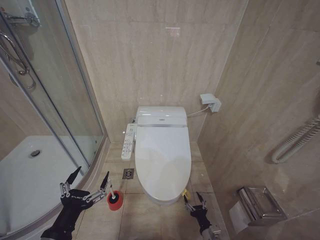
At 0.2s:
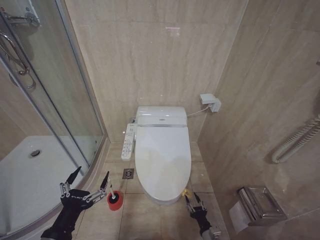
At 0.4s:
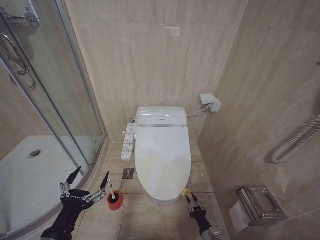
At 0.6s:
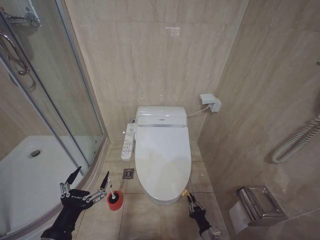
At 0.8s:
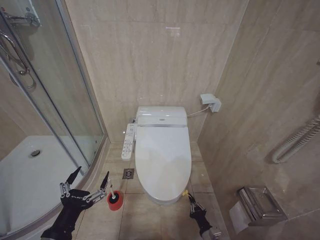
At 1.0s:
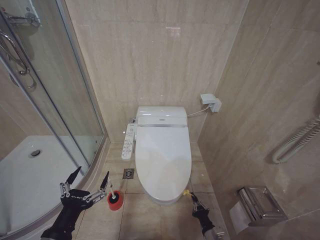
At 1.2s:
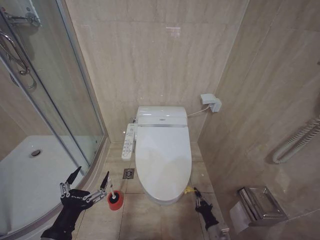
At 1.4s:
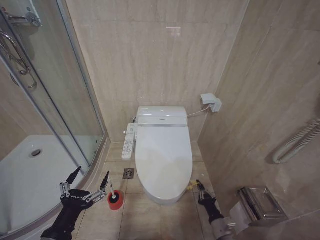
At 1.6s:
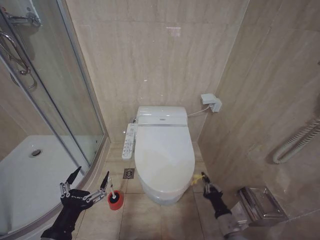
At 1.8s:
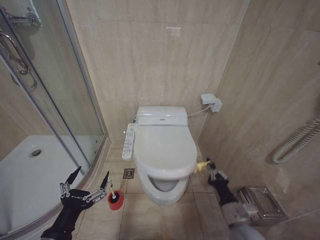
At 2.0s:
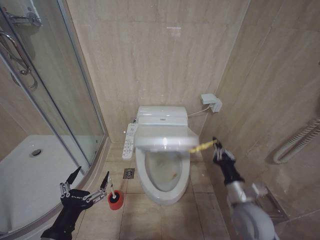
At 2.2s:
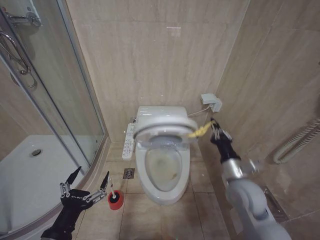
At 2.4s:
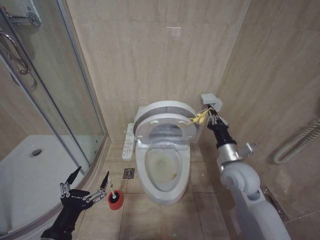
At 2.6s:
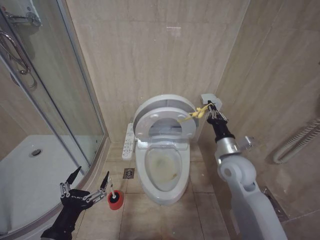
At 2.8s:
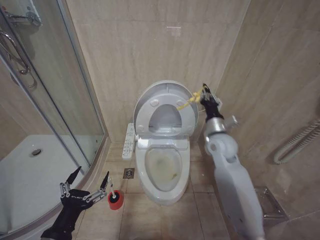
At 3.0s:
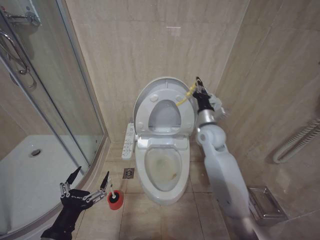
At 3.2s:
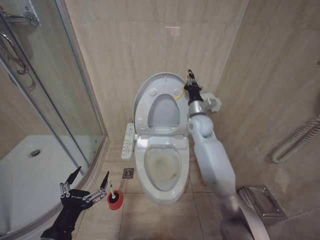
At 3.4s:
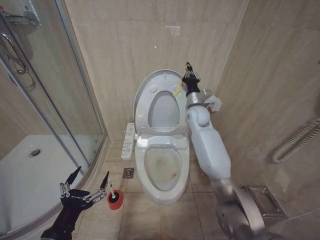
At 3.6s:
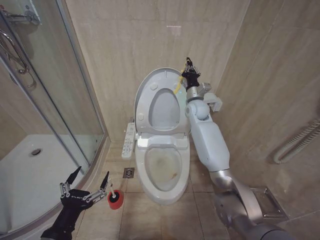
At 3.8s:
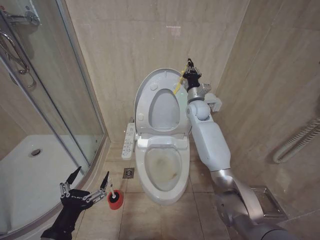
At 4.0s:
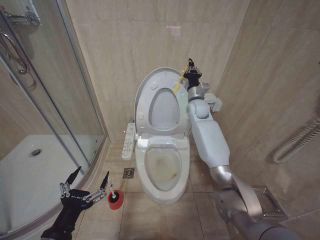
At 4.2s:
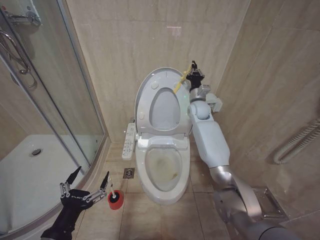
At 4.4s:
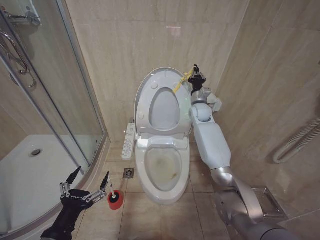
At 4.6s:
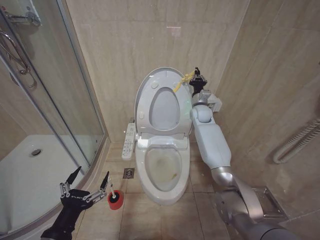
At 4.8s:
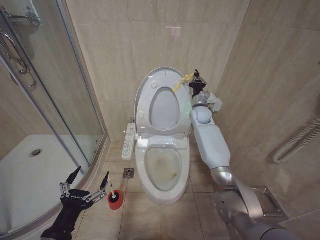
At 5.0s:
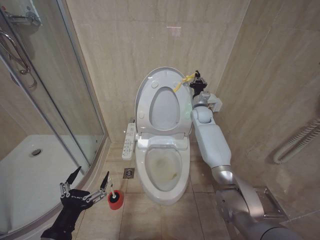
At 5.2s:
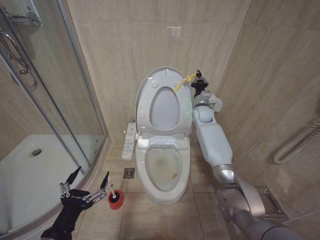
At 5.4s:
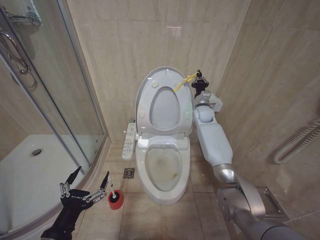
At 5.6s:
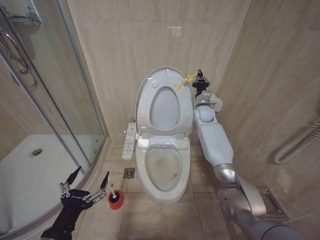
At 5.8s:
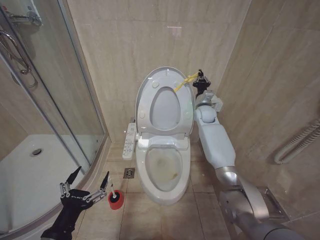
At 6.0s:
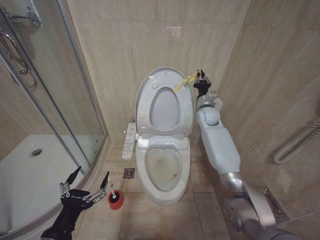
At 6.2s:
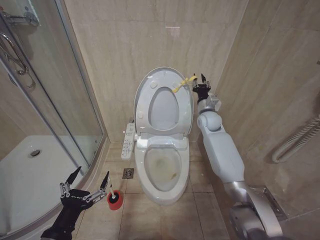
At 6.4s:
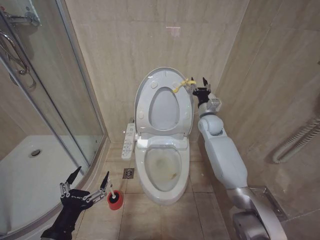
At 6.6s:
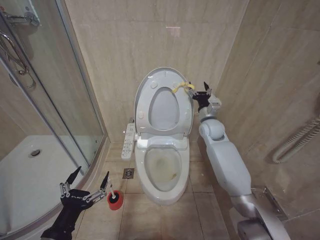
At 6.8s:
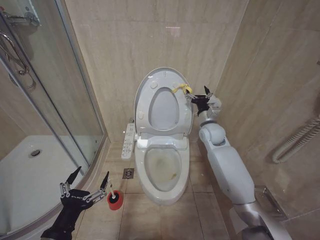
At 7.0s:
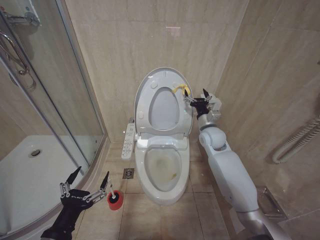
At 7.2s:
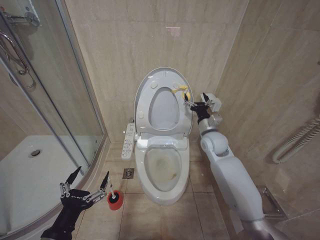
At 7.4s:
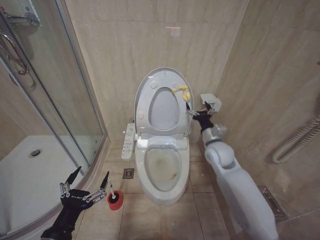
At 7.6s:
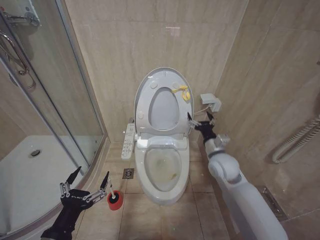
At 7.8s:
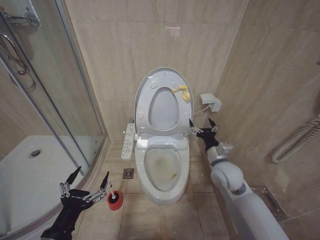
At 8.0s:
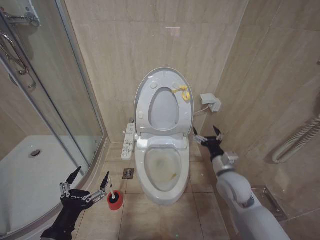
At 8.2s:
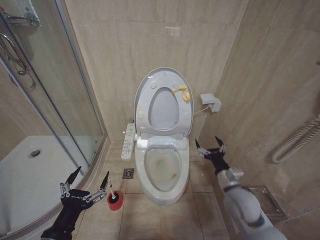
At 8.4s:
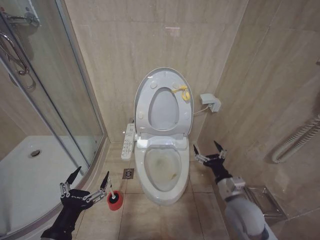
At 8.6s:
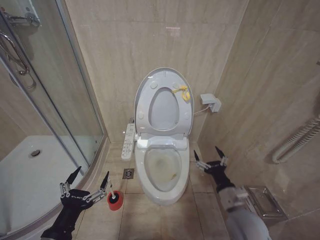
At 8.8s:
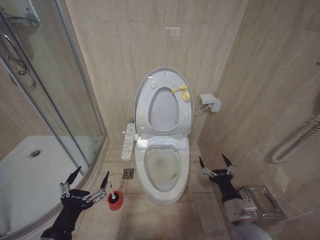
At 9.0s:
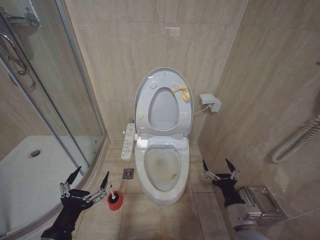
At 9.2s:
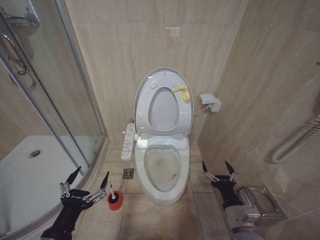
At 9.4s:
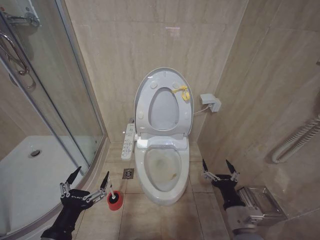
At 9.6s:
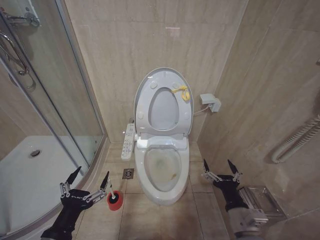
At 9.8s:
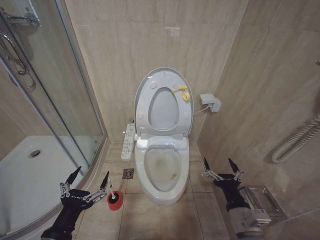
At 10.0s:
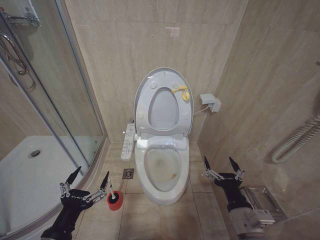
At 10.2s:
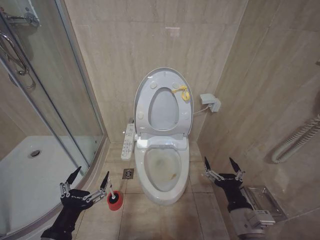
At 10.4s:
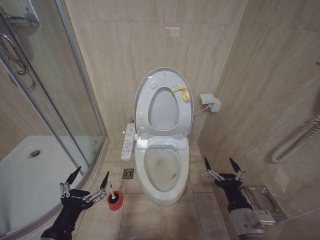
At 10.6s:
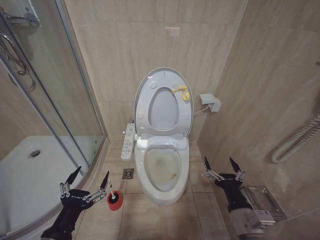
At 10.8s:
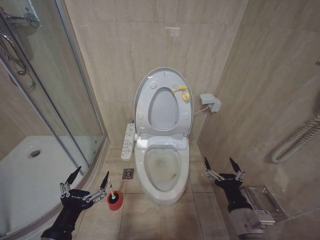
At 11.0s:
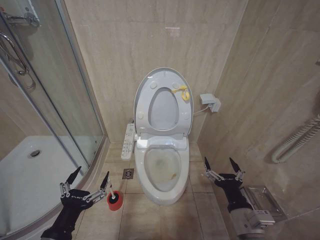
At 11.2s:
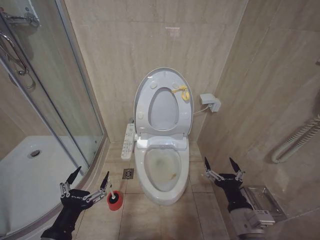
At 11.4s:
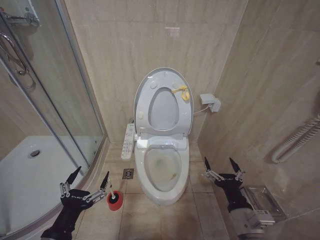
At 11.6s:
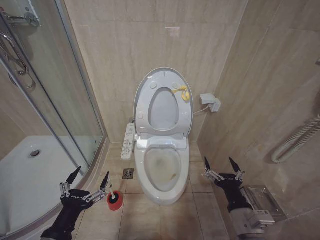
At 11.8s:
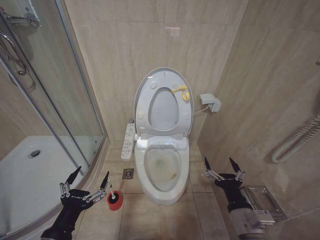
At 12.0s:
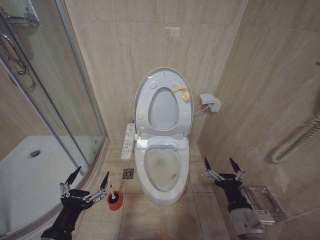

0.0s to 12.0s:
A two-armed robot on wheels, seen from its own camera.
Task of the whole recording: Open the toilet lid, clean the toilet bowl with a toilet brush, close the toilet lid, and flush.
0.0s to 1.6s: The right gripper heads upward, covering roughly 10 cm, and closes.
1.6s to 3.0s: The right gripper goes approximately 40 cm upward and forward.
3.0s to 4.4s: The right gripper travels forward by approximately 15 cm.
4.4s to 6.0s: The grippers stay close to where they were, moving slightly.
6.0s to 7.6s: The right gripper goes roughly 20 cm backward and downward, and opens.
7.6s to 9.0s: The right gripper goes about 25 cm backward and downward.
9.0s to 10.4s: The right gripper moves some 5 cm.
10.4s to 12.0s: Both grippers stay put.

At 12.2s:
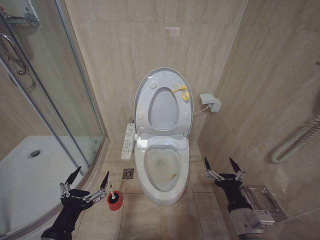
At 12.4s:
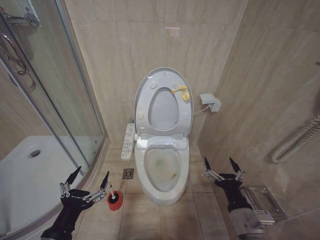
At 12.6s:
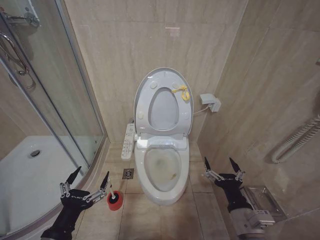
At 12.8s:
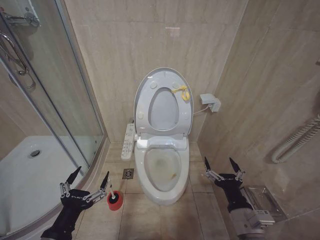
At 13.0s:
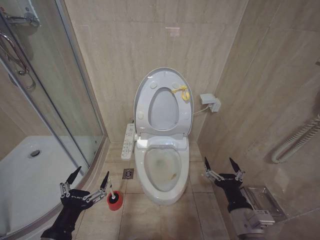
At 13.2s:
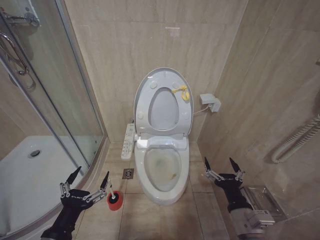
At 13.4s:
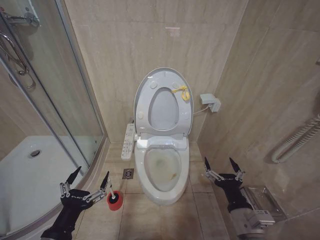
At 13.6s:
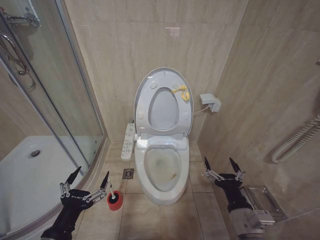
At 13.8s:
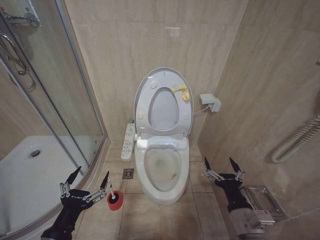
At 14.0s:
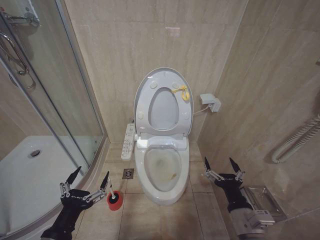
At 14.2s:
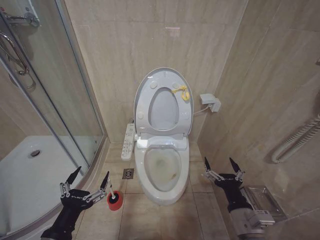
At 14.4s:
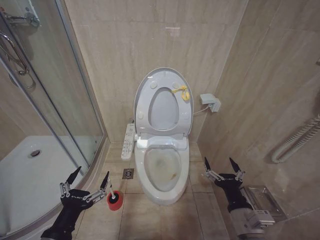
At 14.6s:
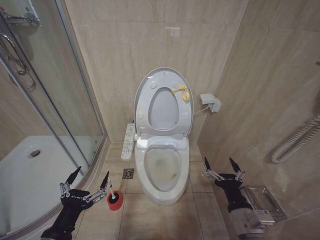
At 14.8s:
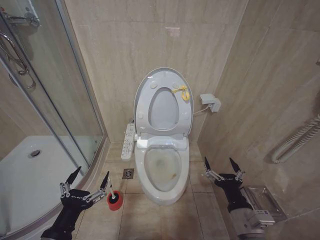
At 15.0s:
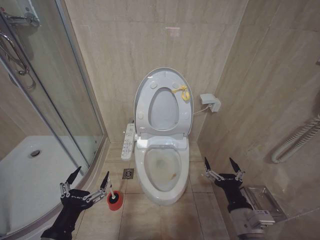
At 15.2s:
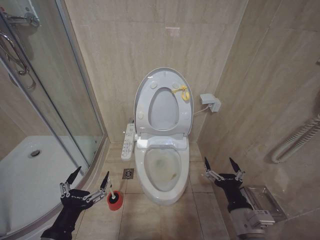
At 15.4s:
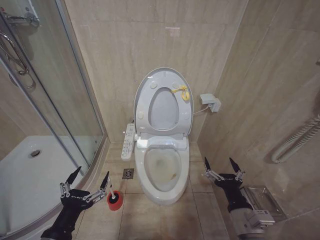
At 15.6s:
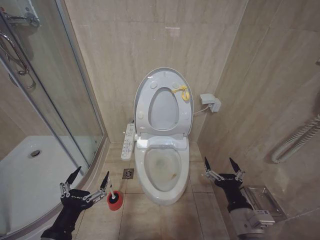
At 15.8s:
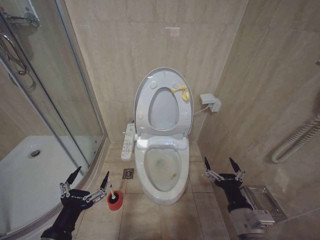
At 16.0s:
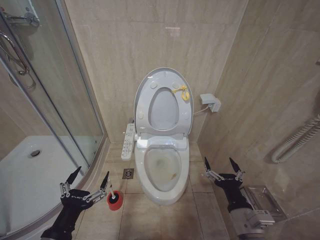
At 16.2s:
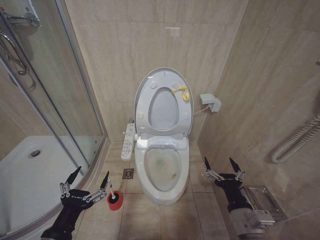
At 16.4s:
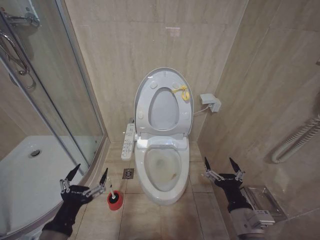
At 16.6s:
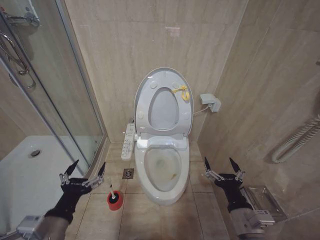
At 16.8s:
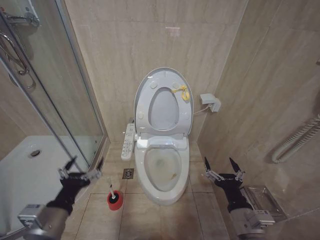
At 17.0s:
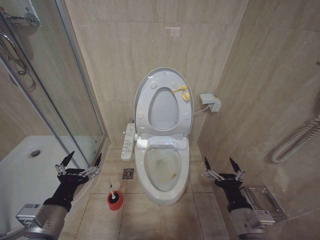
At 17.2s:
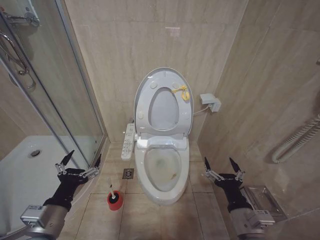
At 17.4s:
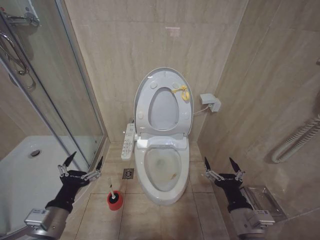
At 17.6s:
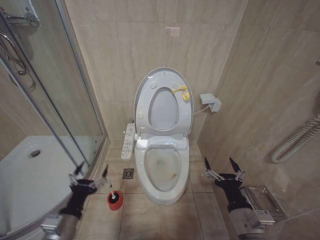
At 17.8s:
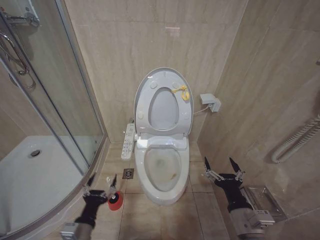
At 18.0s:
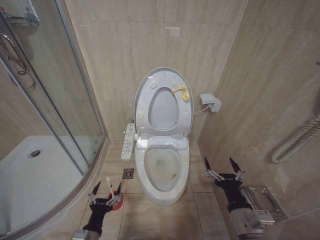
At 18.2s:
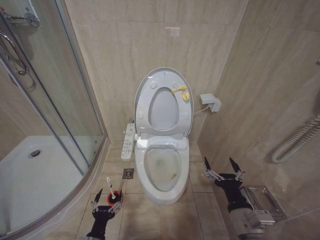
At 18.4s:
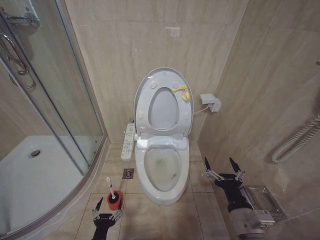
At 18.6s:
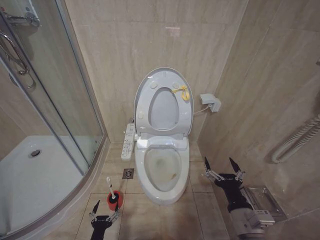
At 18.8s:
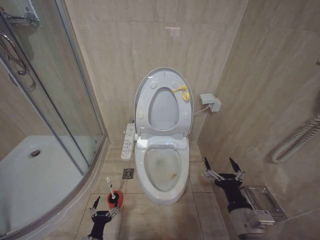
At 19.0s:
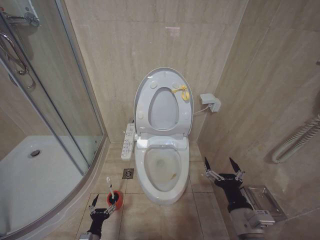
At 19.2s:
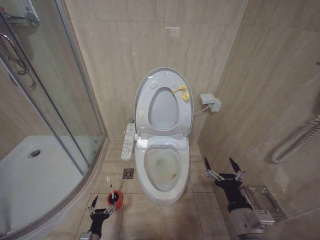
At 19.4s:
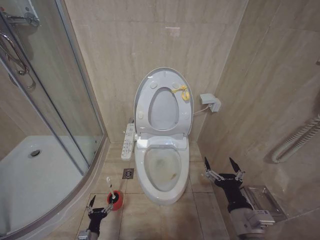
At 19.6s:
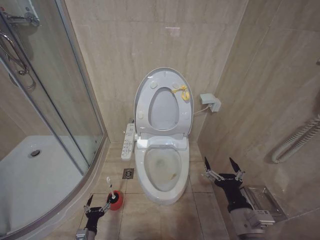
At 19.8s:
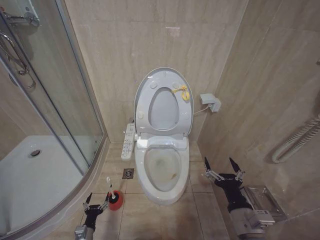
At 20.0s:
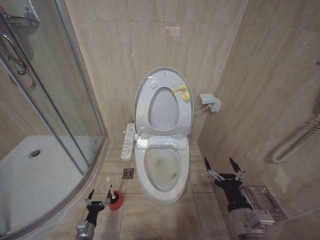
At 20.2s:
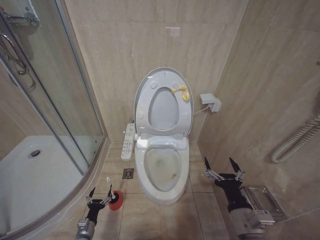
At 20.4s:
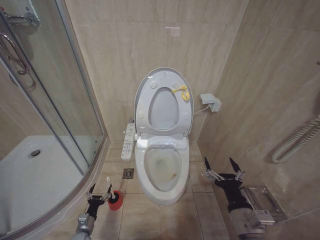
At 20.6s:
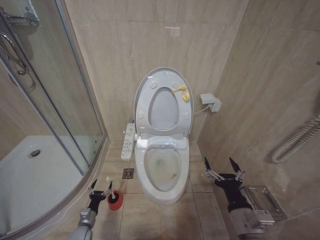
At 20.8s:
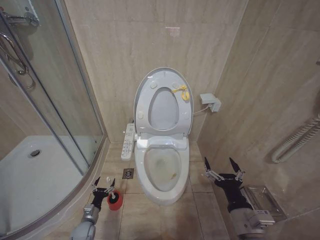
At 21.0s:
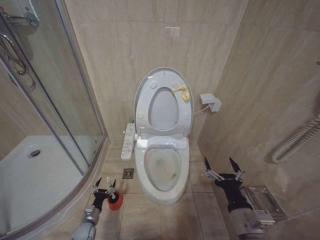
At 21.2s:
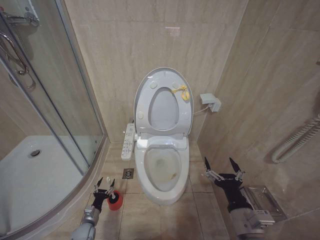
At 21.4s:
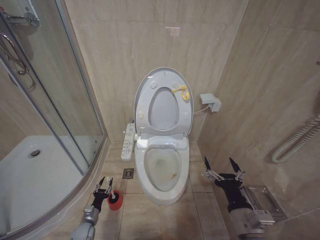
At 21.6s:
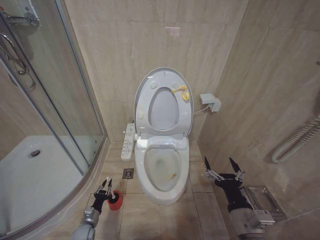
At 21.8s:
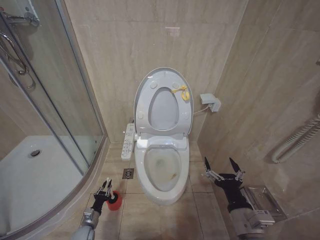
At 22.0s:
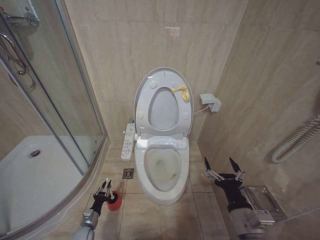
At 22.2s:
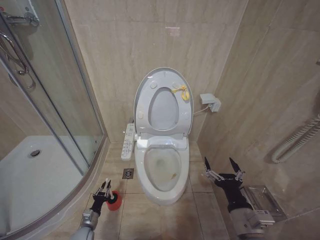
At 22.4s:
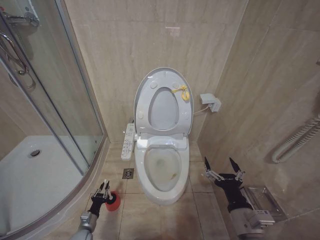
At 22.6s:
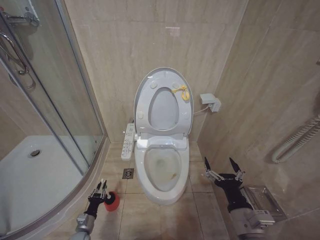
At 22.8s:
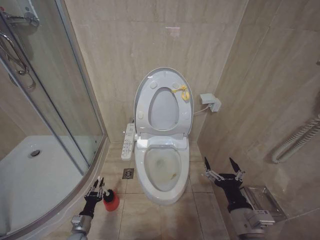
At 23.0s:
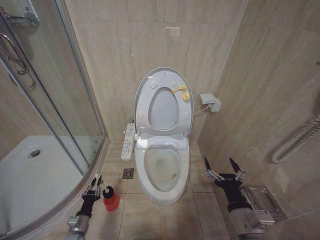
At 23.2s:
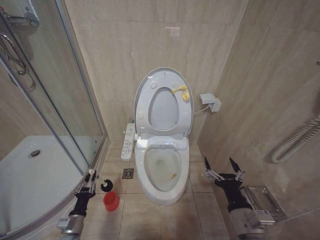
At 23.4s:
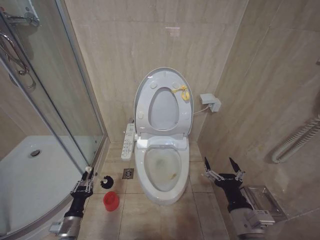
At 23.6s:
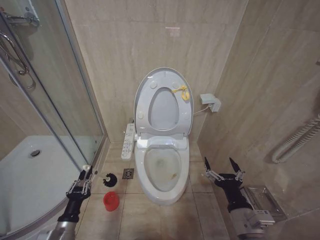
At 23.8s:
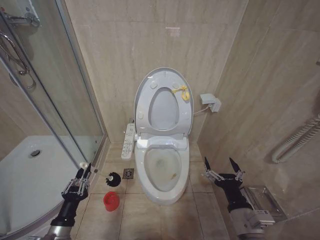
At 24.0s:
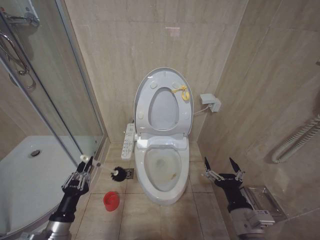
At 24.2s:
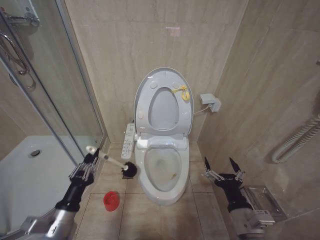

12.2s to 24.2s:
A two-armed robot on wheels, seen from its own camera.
Task of the whole recording: Open the toilet lid, clean the toilet bowl with a toilet brush, close the toilet lid, and flush.
12.2s to 15.2s: Both grippers stay put.
15.2s to 16.6s: The grippers make only small movements.
16.6s to 18.2s: The left gripper shifts roughly 20 cm downward.
18.2s to 19.8s: The left gripper heads downward, to the left and forward, covering some 20 cm.
19.8s to 21.2s: The left gripper goes about 10 cm forward.
21.2s to 22.6s: The left gripper closes.
22.6s to 24.2s: The left gripper shifts approximately 30 cm upward.
